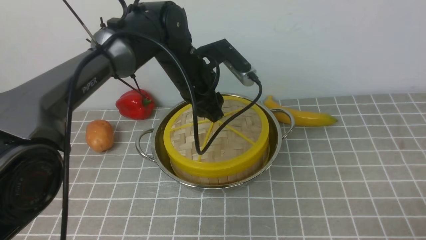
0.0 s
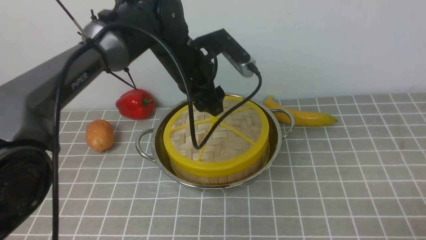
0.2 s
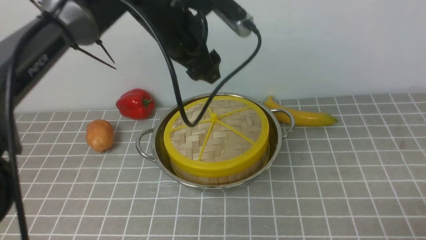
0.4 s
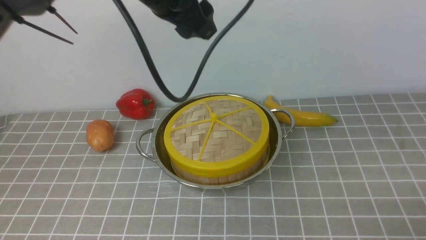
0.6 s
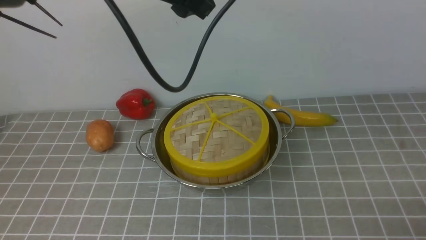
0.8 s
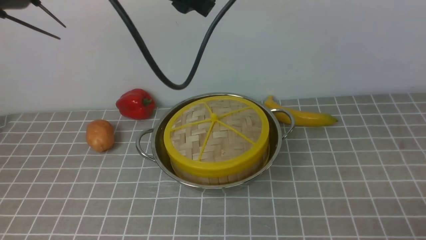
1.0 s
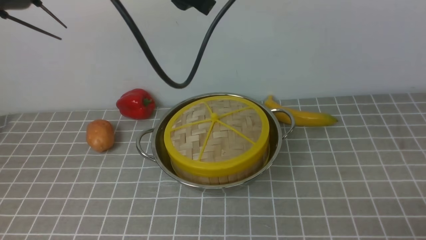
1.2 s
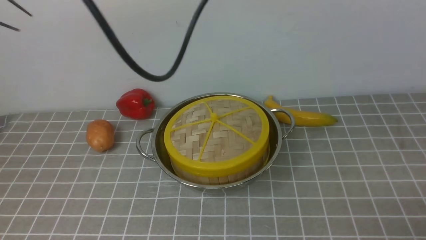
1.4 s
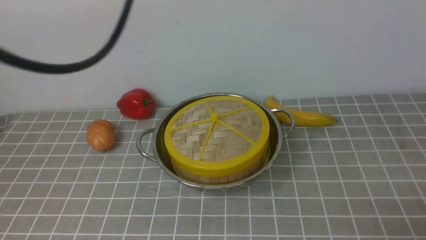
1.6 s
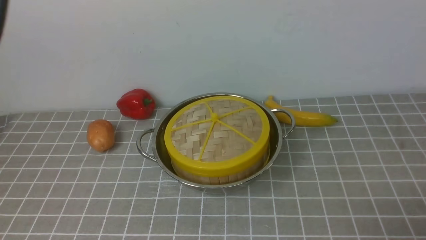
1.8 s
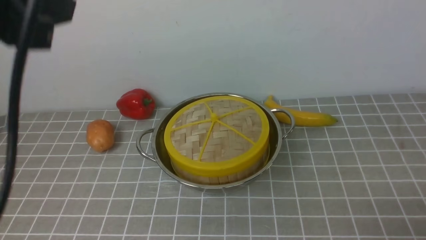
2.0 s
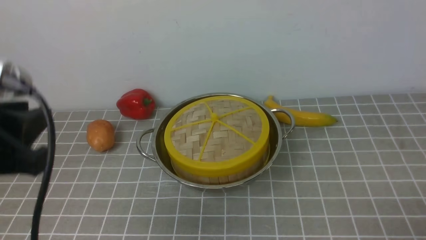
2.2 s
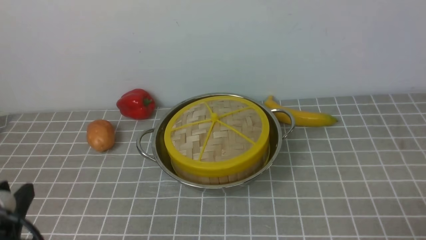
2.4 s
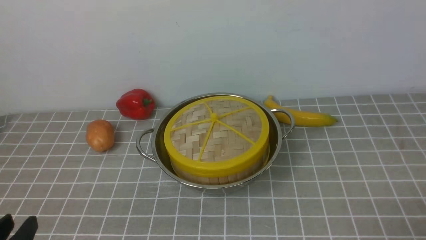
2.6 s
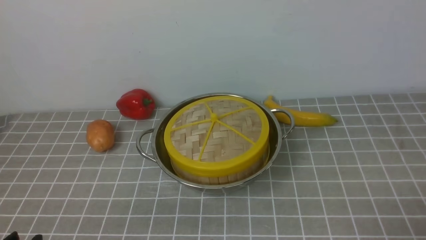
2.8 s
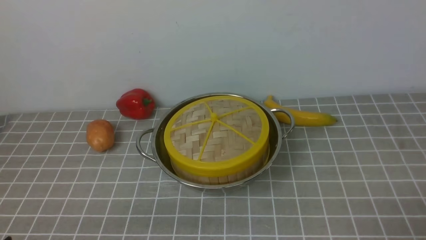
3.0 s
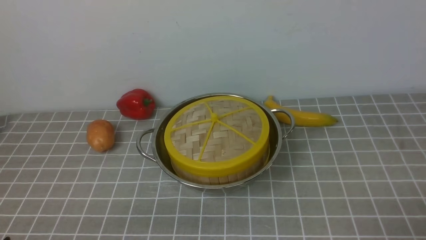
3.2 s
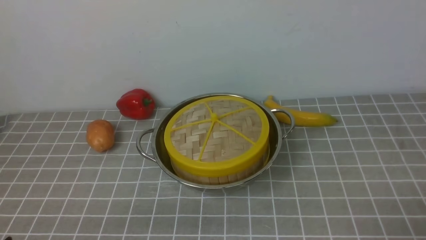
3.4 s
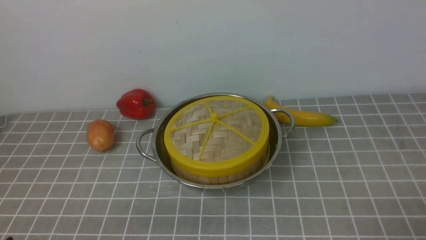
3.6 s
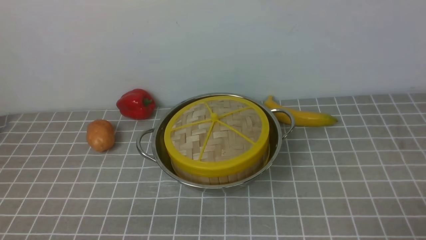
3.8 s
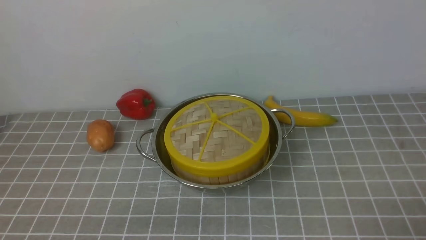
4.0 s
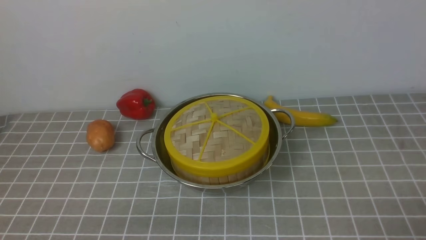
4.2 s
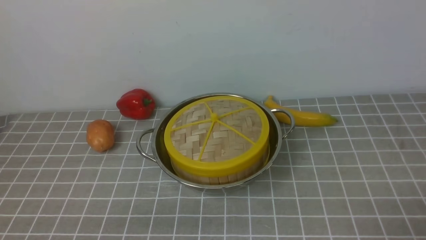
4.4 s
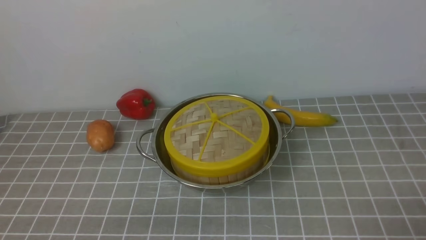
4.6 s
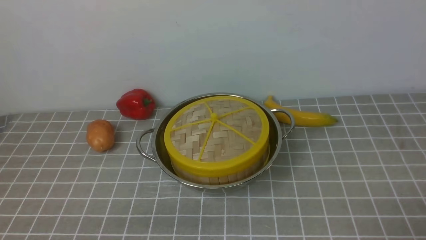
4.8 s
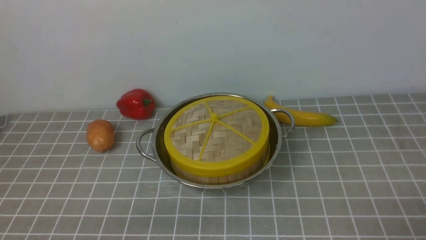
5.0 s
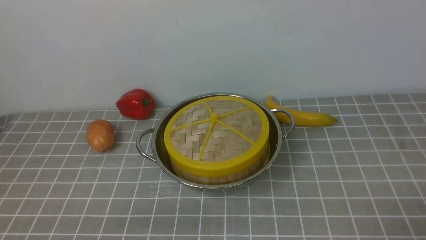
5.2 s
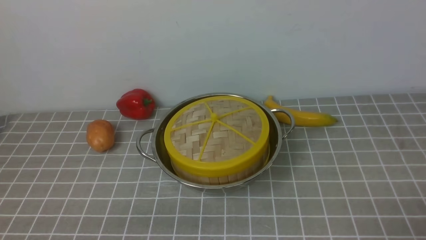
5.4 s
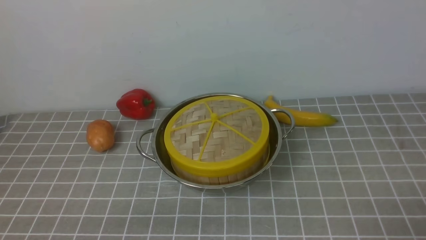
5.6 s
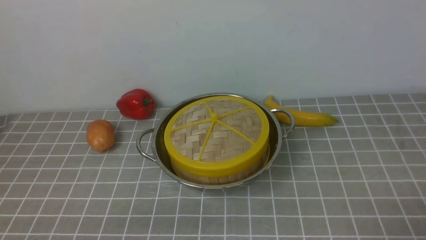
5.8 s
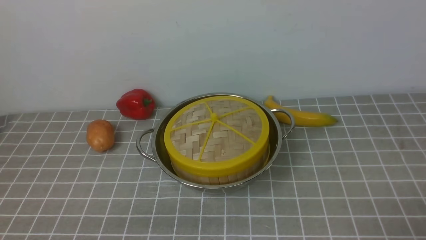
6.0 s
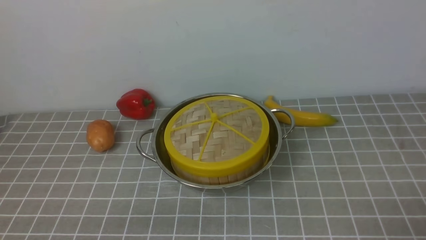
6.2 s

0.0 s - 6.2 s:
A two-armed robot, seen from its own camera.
Task of the whole recording: place the steamer in the pot on the grey tablecloth, and put the lid on the steamer.
0.0 s - 1.6 s: The left gripper travels upward and backward by about 30 cm, and closes.
1.6 s - 3.2 s: The left gripper travels downward and backward by some 40 cm.
4.6 s - 6.2 s: Both grippers stay about where they are.
